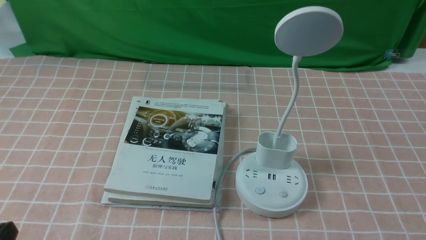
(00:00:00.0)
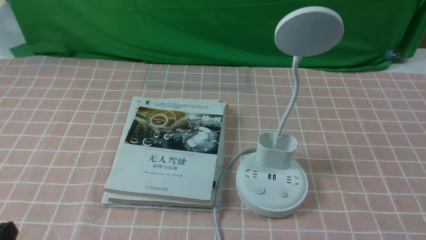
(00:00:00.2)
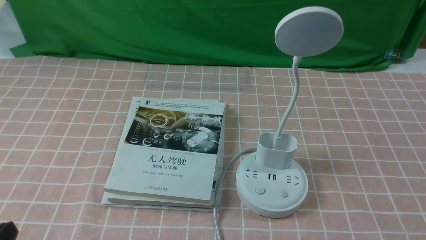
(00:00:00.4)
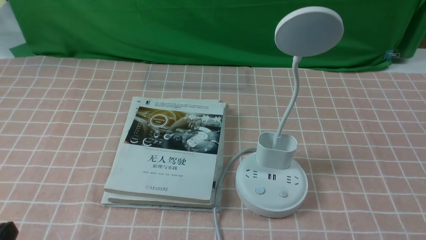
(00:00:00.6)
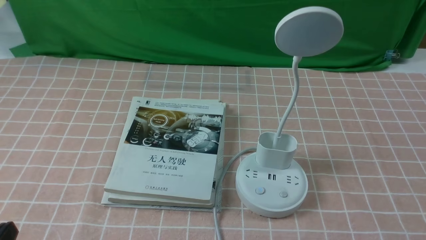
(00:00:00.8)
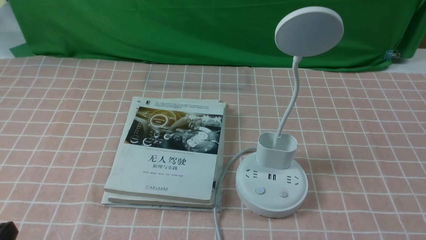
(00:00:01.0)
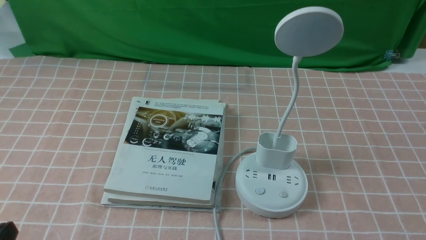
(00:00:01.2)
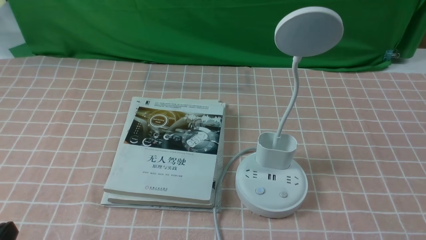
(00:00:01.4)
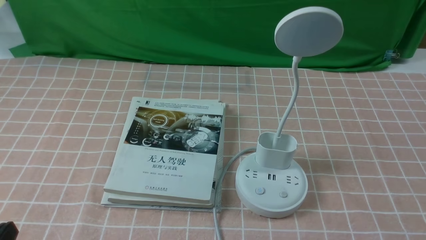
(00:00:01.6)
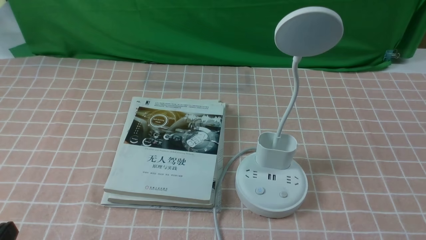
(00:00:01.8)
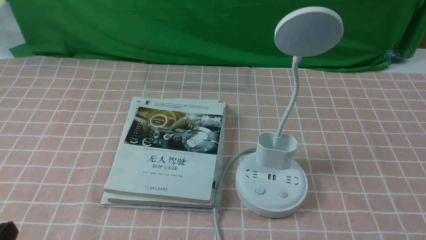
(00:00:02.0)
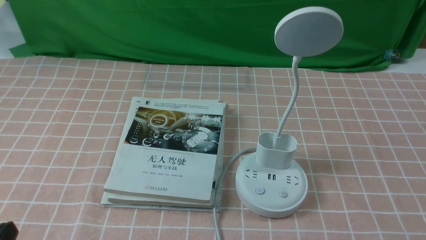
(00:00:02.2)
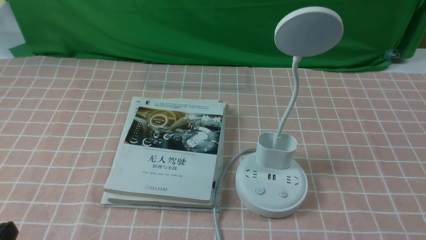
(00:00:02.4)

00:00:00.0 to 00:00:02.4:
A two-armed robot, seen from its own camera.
Task of the whole recording: turn off the table lamp on the pink coffee tablecloth by hand.
00:00:00.0 to 00:00:01.2: Neither gripper changes place.

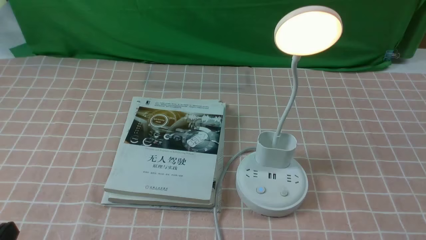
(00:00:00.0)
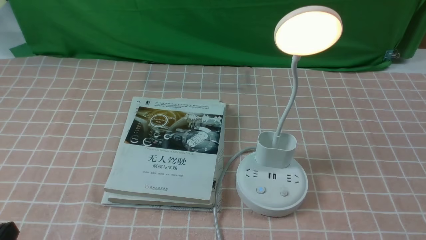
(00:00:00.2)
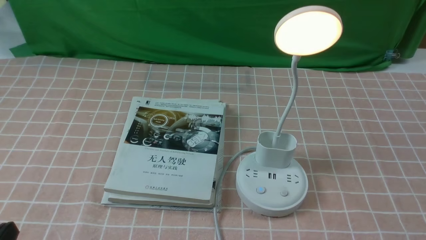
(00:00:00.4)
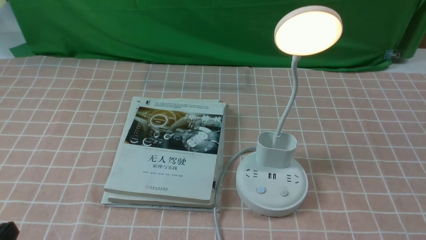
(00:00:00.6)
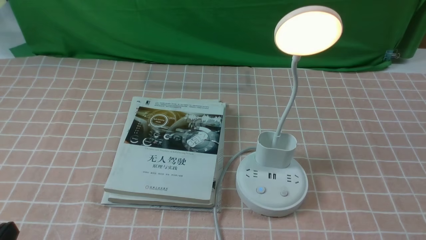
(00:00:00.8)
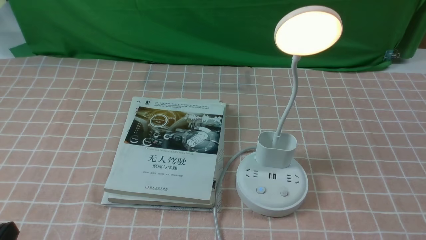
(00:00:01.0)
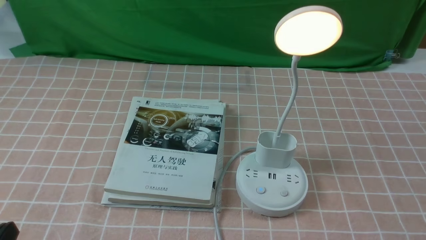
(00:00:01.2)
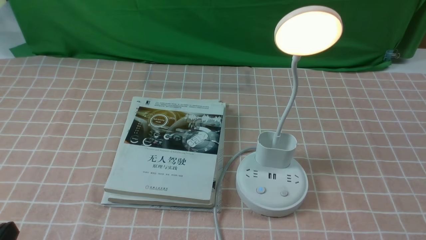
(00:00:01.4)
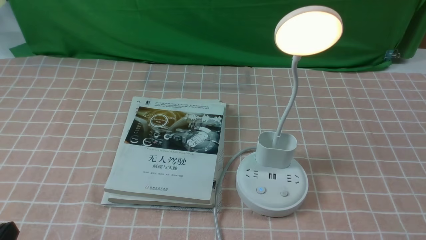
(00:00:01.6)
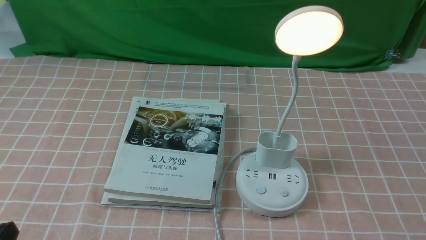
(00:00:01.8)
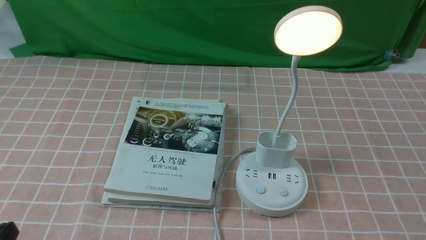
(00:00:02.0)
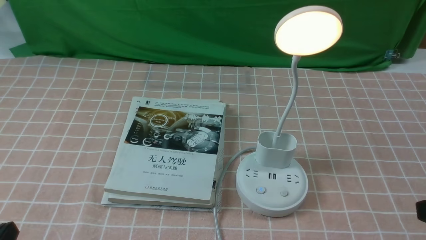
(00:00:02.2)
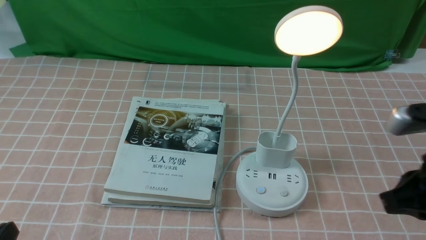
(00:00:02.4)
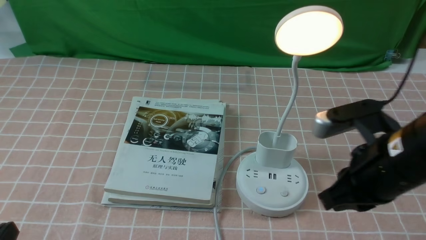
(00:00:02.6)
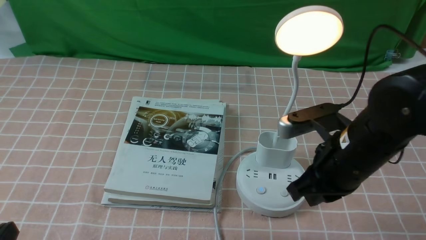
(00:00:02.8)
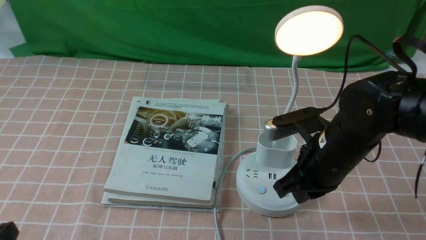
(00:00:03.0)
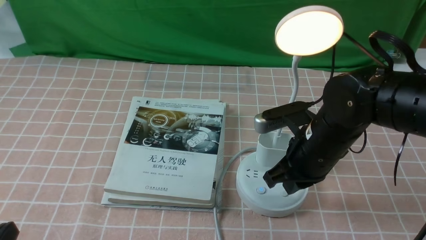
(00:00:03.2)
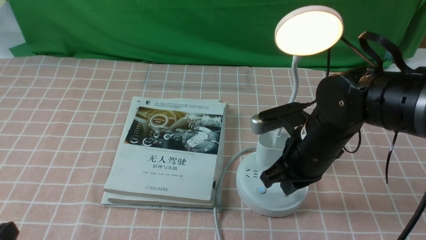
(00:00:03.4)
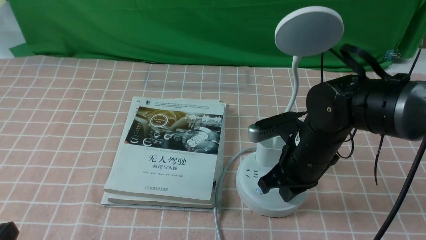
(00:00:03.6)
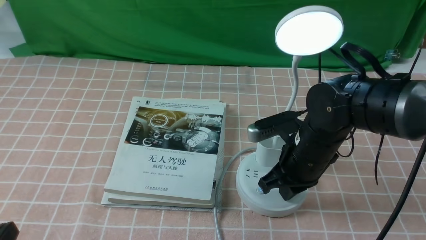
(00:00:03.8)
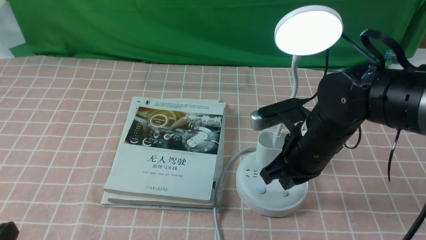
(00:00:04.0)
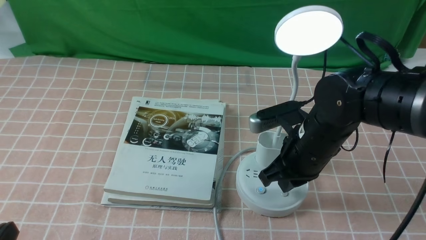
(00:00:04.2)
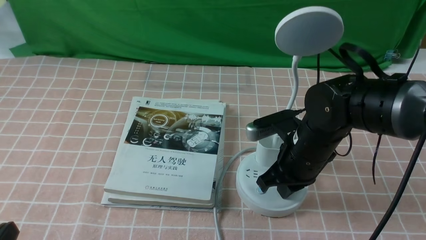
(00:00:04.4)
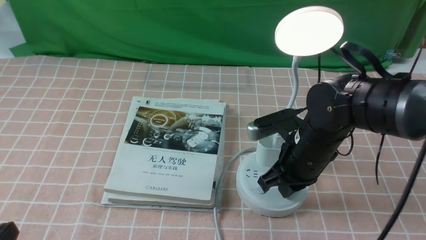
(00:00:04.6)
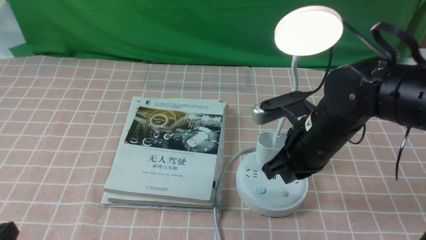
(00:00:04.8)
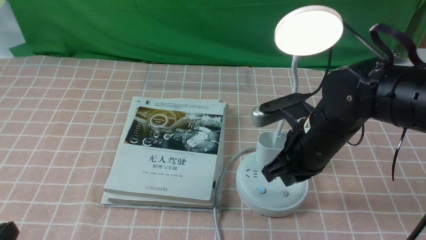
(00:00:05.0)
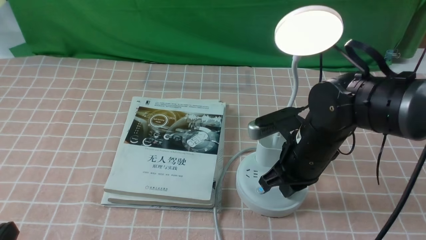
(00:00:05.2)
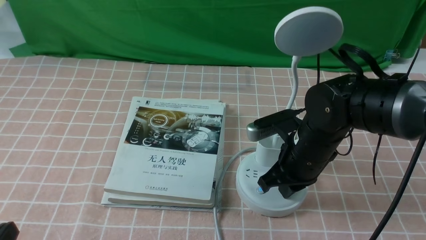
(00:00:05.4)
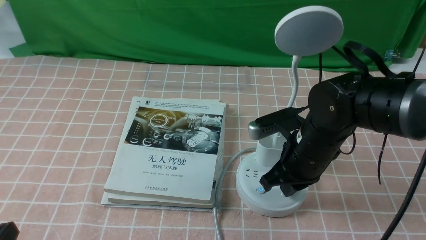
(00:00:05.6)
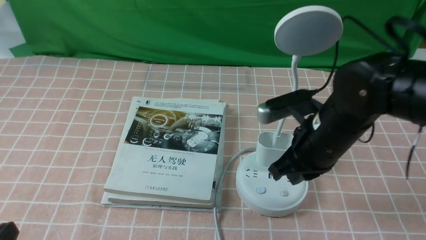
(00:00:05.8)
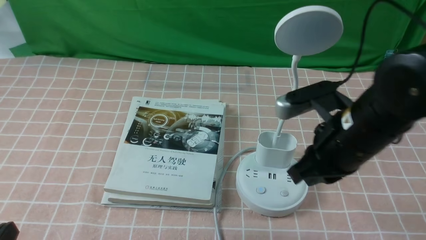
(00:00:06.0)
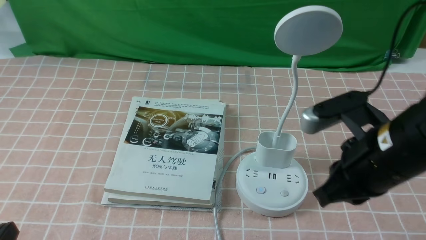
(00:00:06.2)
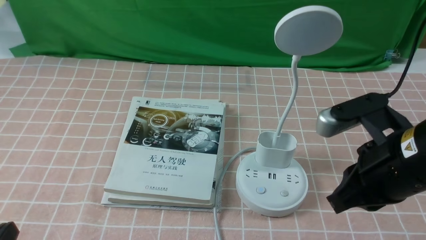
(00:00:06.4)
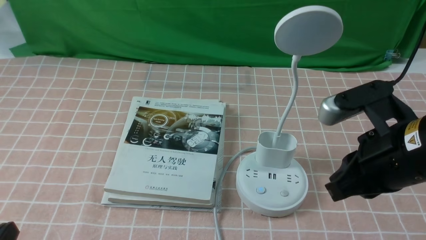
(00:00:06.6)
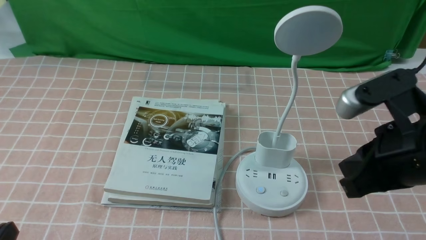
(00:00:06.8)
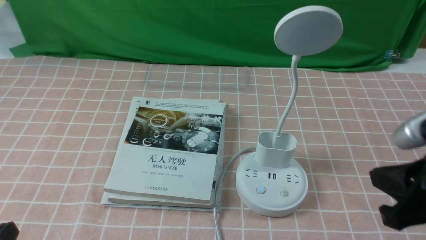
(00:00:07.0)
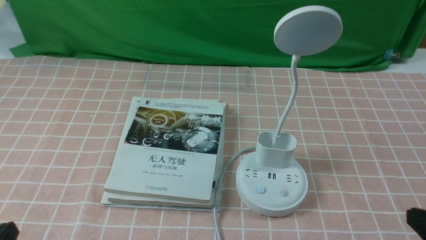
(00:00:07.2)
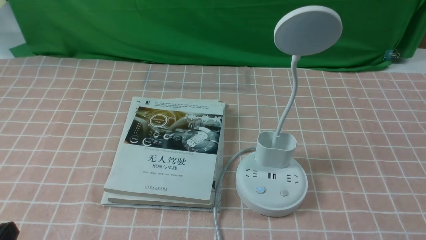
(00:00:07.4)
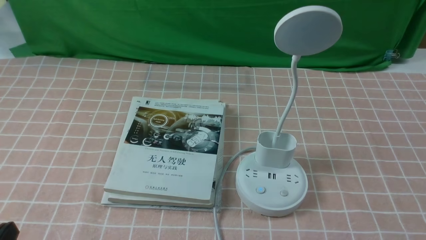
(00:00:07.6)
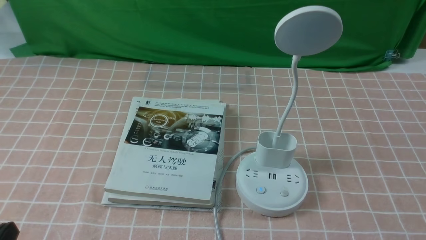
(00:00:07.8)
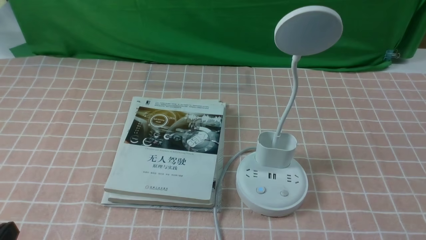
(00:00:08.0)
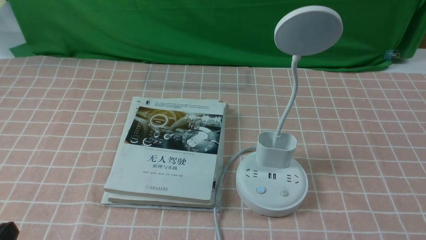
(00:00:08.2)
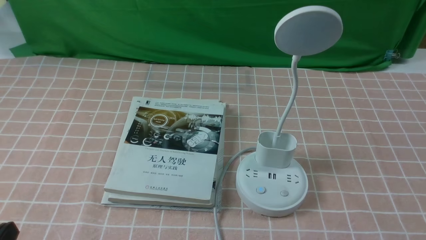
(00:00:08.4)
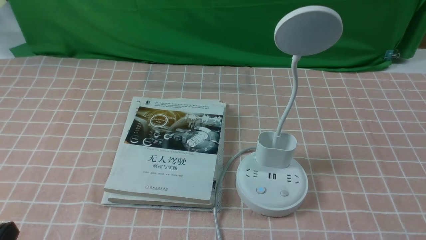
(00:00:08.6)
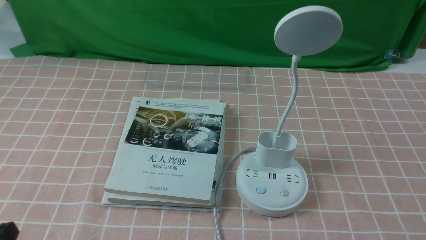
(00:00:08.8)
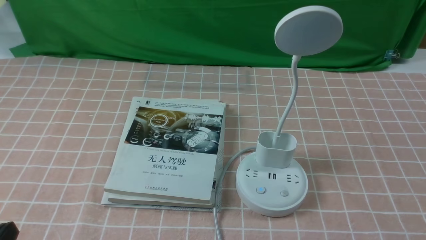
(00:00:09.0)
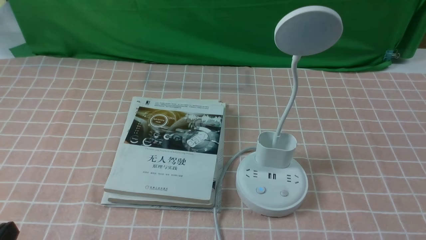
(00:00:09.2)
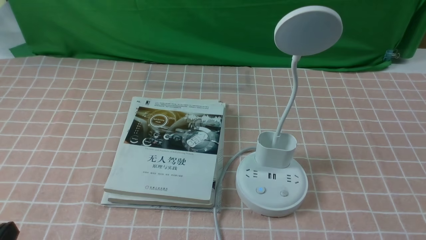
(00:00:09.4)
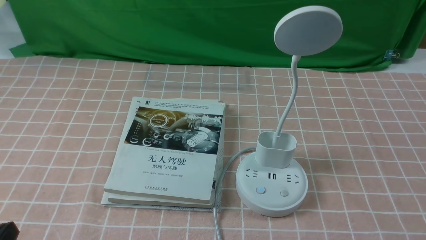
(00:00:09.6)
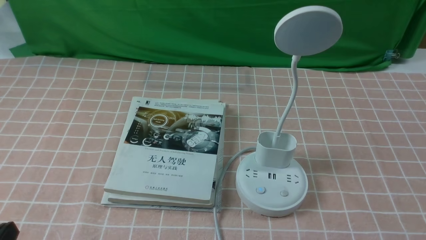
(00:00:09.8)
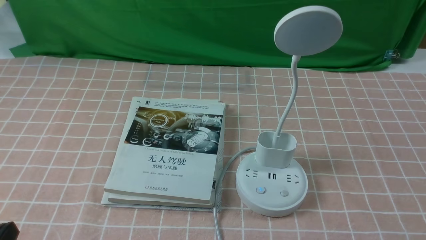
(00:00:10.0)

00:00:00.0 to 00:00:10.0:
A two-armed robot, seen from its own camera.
Task of the whole recording: turn off the table lamp on the pink coffee tablecloth by hand.
Step, 00:00:00.0 to 00:00:05.6: use the right arm to press the button switch on the lamp holder.
00:00:01.4 to 00:00:02.8: The right gripper travels forward and to the left by roughly 25 cm, and closes its fingers.
00:00:02.8 to 00:00:04.2: The right gripper shifts by approximately 10 cm.
00:00:04.2 to 00:00:05.8: There are only small adjustments of the grippers.
00:00:05.8 to 00:00:07.2: The right gripper goes about 25 cm backward and to the right.
